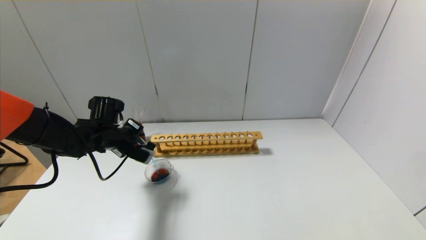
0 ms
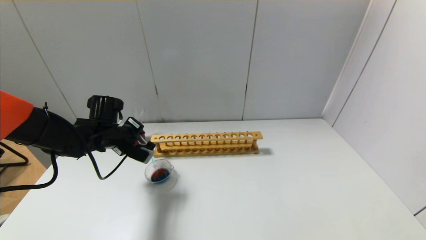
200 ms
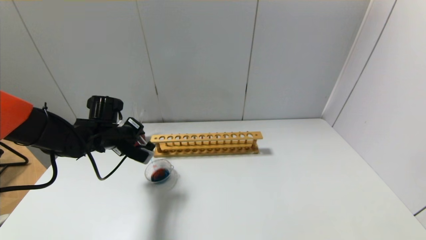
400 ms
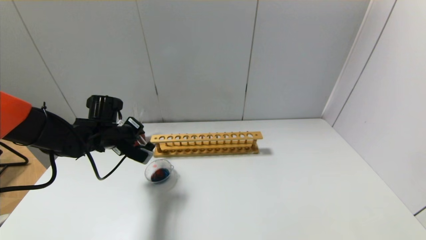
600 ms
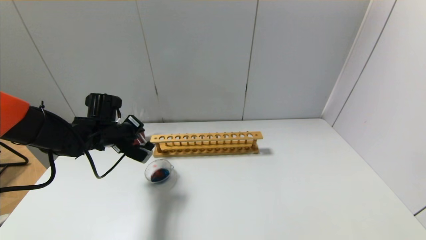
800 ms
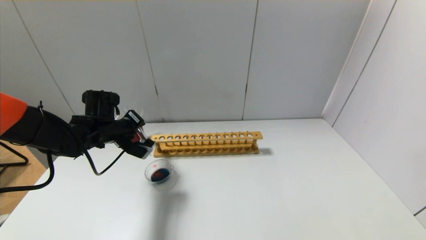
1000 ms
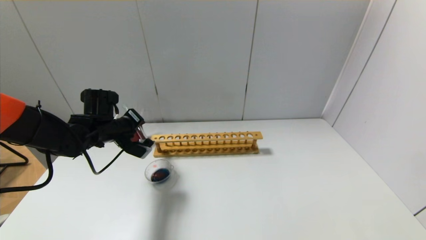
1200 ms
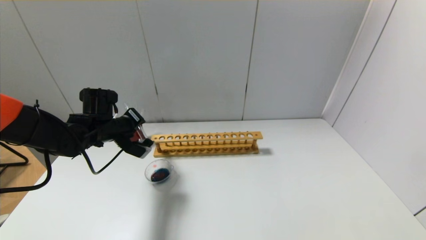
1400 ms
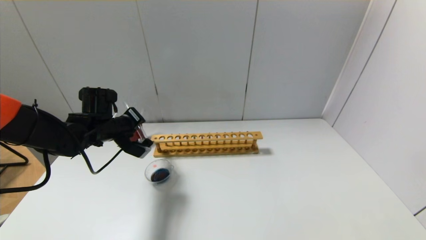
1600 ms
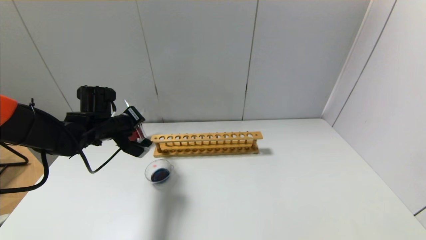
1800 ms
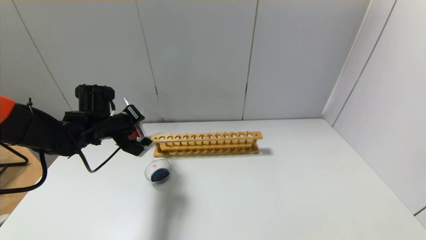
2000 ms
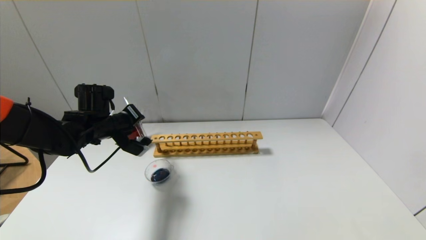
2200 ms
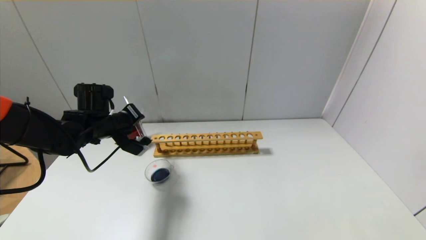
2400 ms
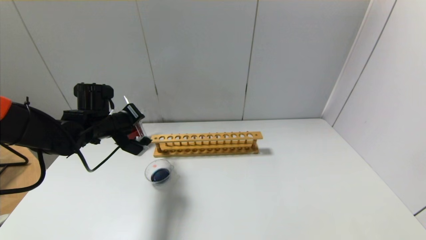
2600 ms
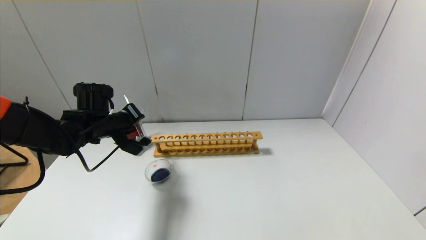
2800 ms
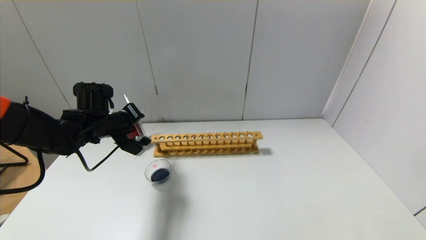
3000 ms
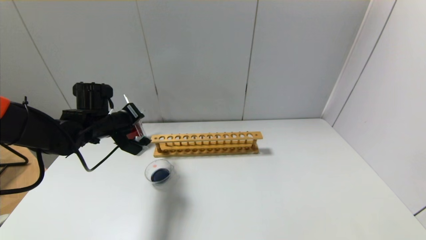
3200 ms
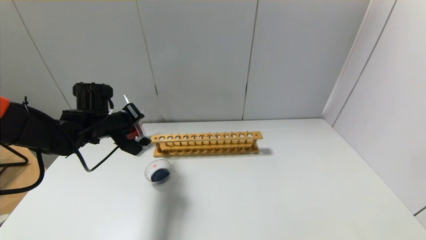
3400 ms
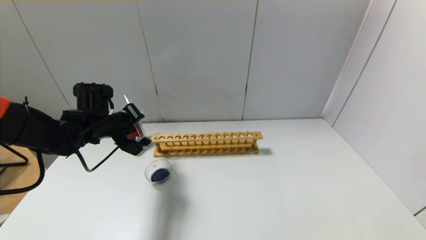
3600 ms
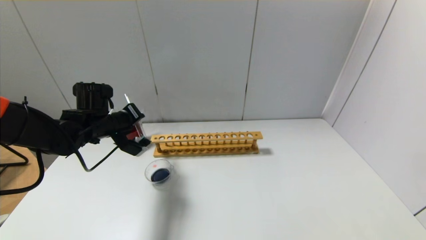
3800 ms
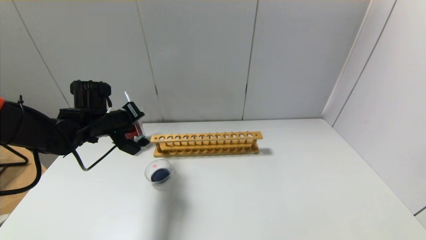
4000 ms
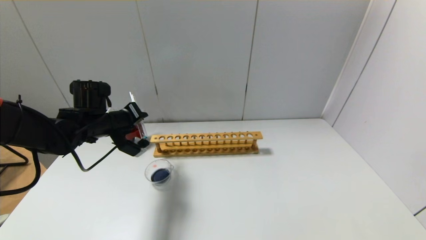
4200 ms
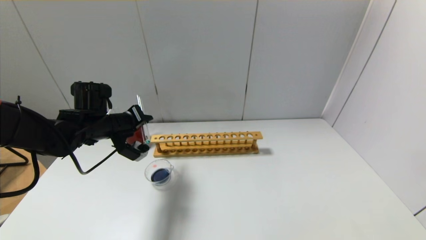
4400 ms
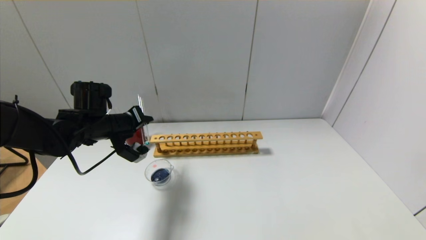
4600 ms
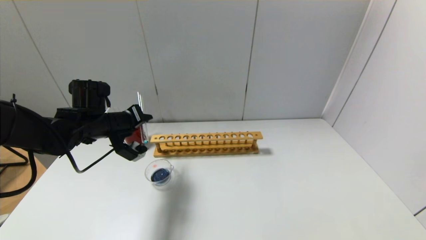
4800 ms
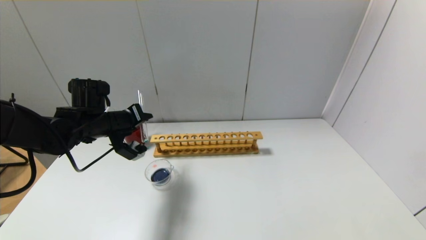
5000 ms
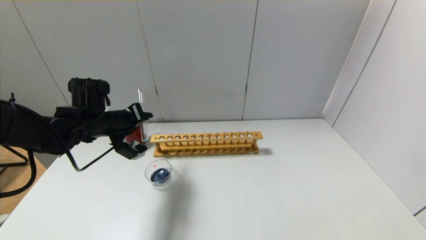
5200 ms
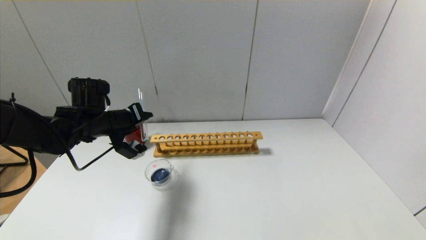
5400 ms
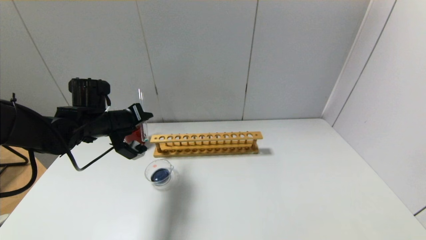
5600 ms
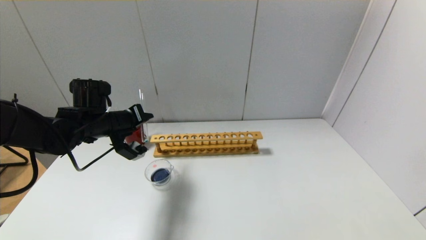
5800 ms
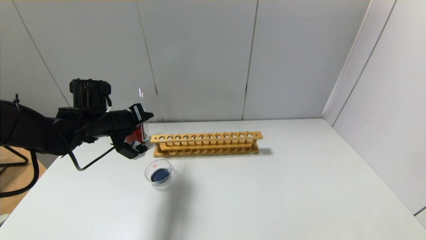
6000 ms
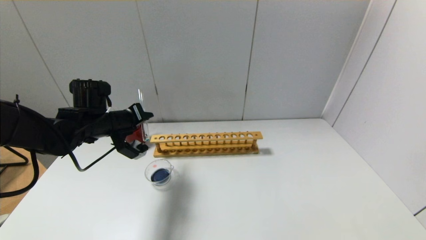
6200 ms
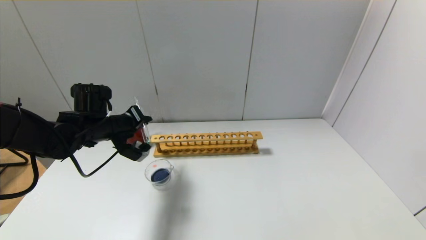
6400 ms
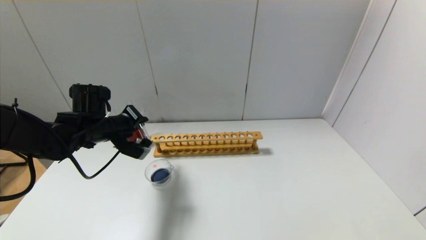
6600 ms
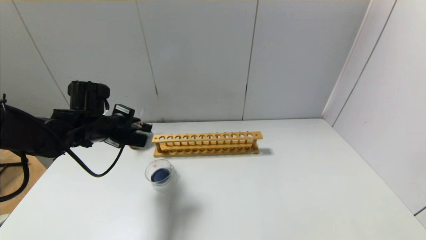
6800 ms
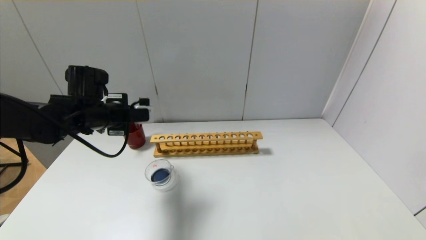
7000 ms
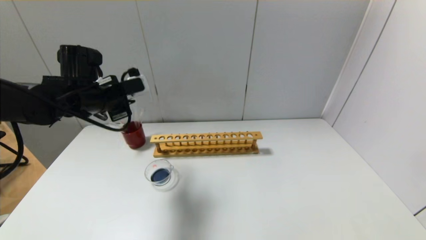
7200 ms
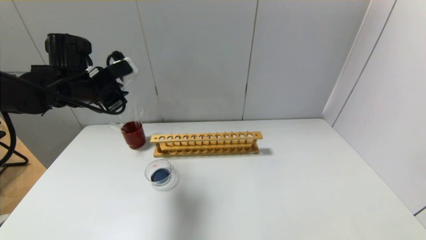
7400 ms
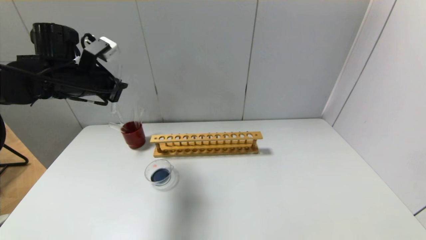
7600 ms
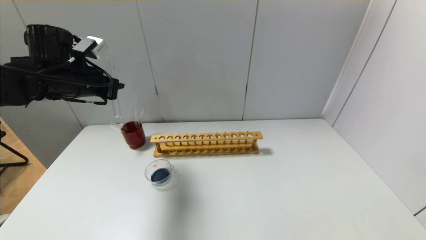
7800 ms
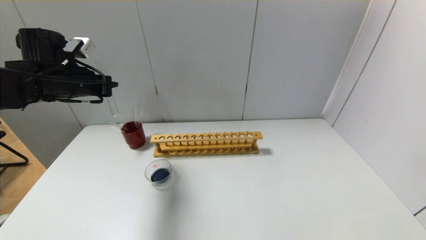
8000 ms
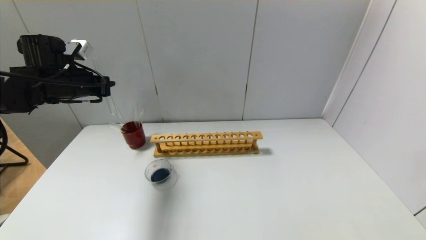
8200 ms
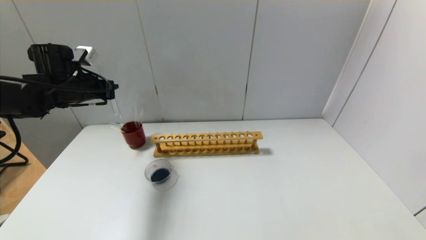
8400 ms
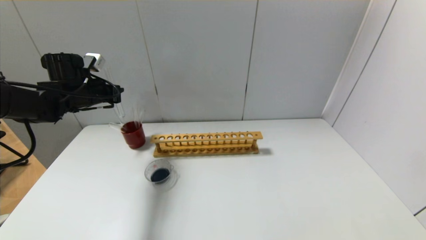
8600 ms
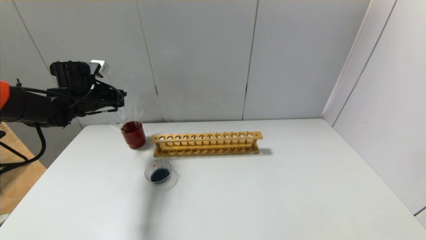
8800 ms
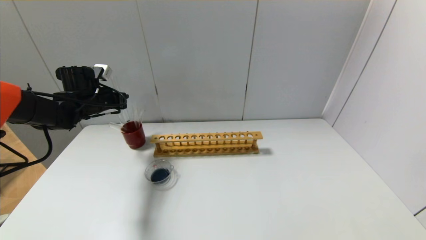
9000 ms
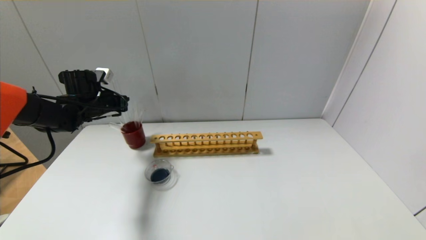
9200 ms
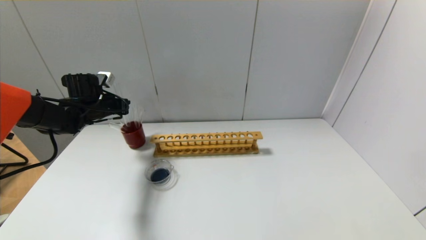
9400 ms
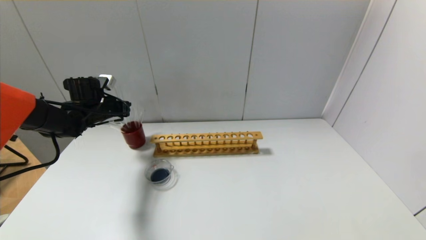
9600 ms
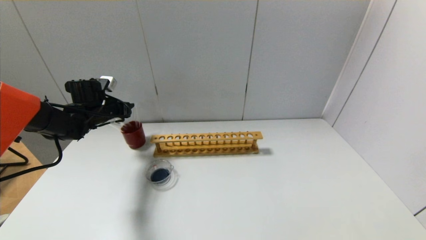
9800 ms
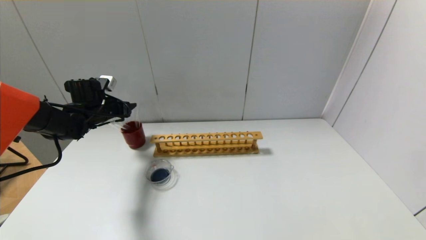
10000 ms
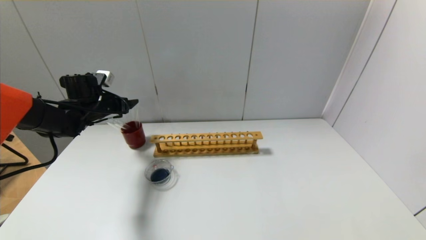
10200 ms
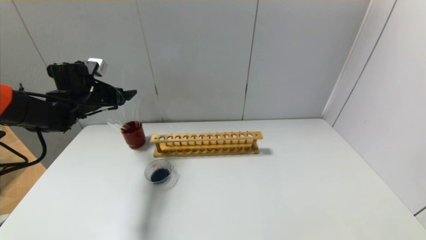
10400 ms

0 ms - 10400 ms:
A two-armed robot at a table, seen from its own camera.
Step, 0 ms - 6000 ms: Pour the blue reagent into the graduated cylinder with the left gripper.
Step, 6200 ms - 9800 ms: Place the test tube into the brown cup with the left gripper.
0 ms - 1400 ms: The grippers stay close to where they were, moving slightly.
1400 ms - 4400 ms: The grippers move only a little.
4400 ms - 6000 ms: The grippers move only a little.
6000 ms - 7400 ms: The left gripper is displaced upward by some 10 cm.
7400 ms - 9000 ms: The left gripper is displaced forward, downward and to the left by about 10 cm.
9000 ms - 10400 ms: The left gripper opens.

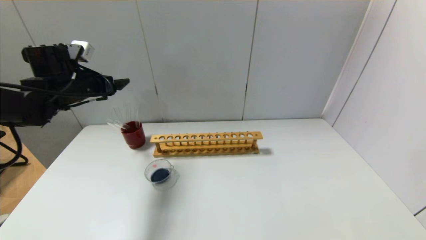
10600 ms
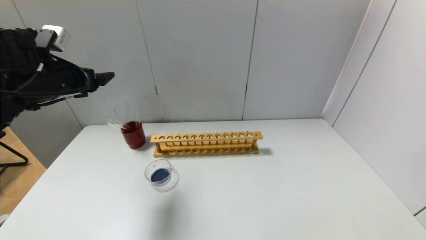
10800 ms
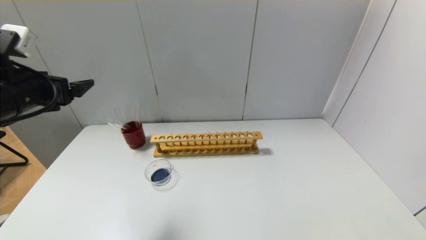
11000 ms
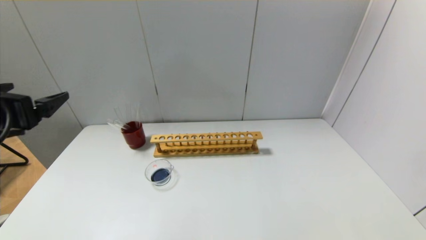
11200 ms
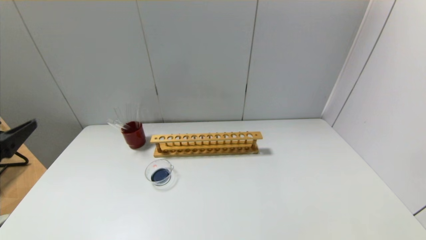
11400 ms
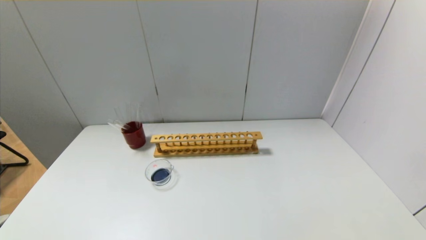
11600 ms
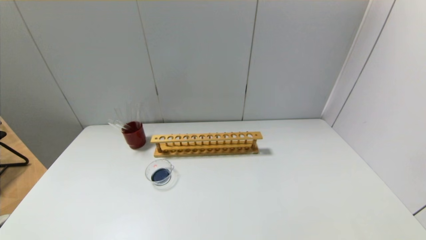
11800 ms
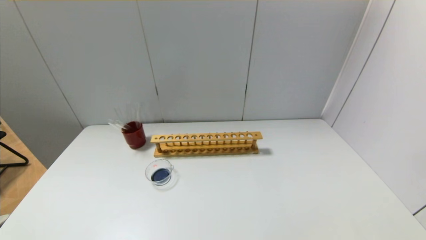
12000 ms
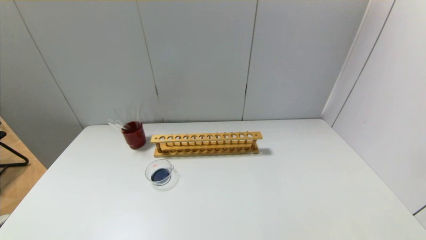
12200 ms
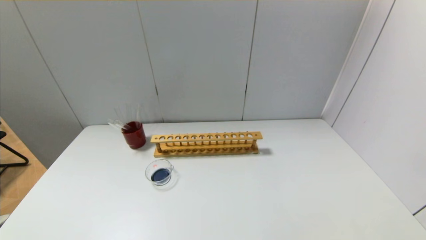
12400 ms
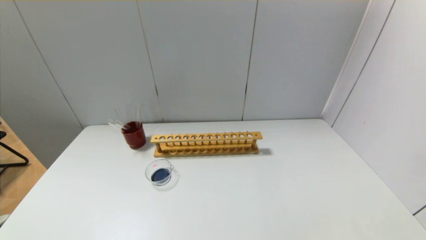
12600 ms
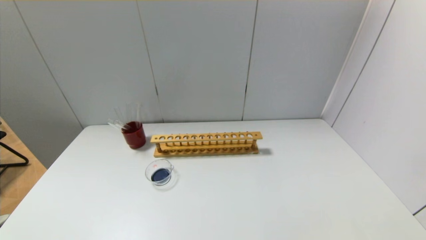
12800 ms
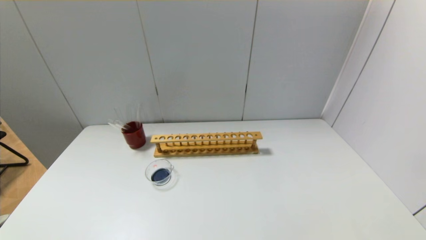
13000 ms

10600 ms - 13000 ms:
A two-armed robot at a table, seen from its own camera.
10600 ms - 11800 ms: The left gripper travels backward by about 40 cm.
